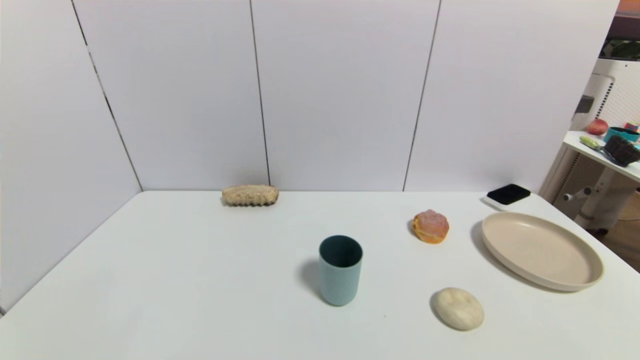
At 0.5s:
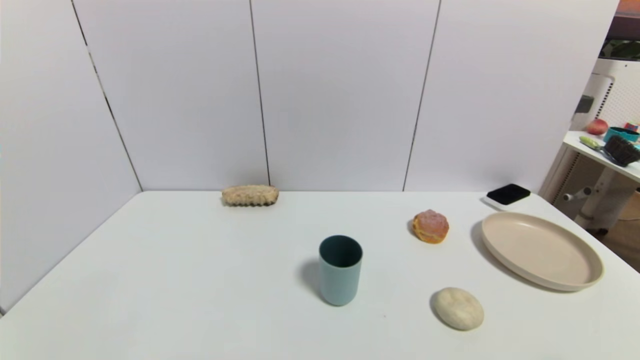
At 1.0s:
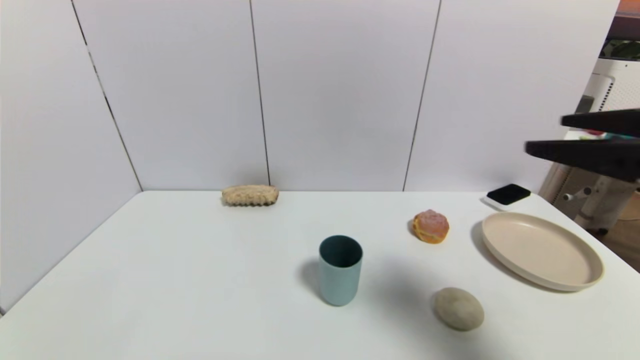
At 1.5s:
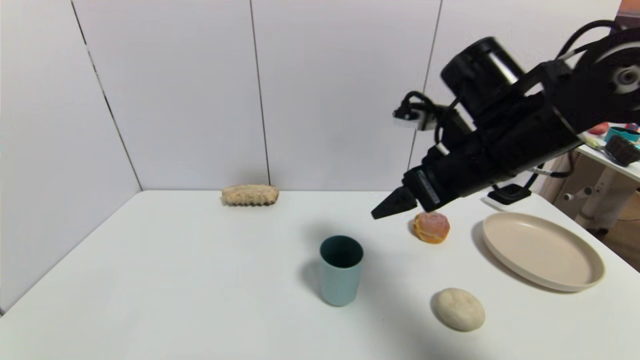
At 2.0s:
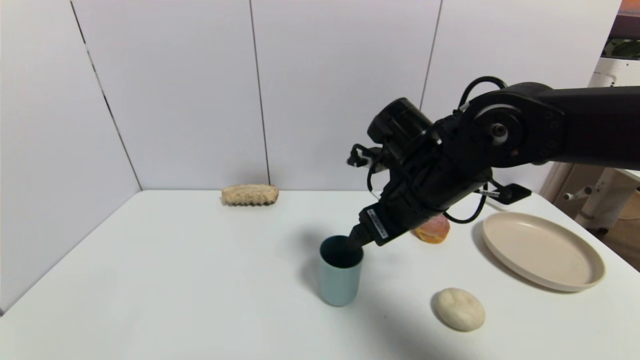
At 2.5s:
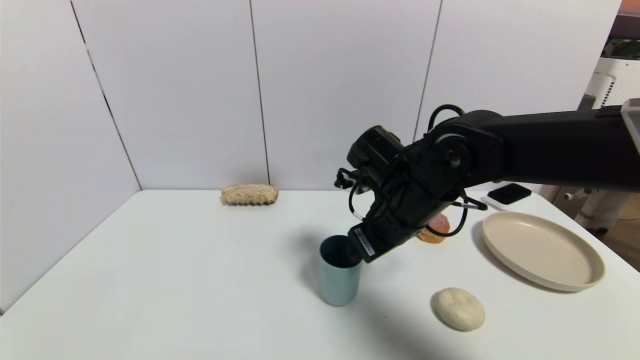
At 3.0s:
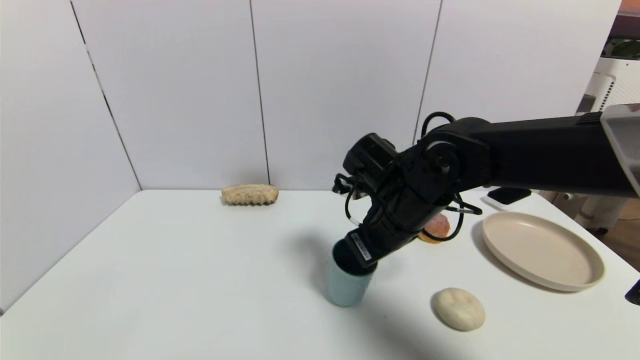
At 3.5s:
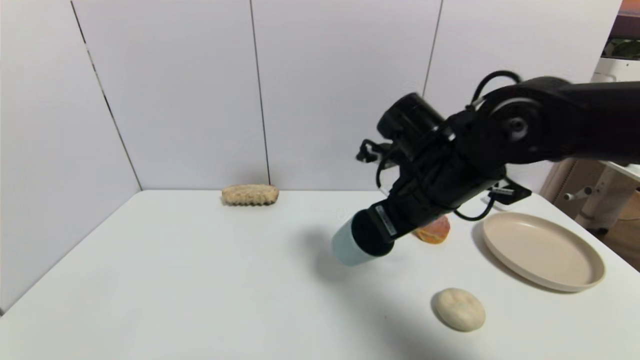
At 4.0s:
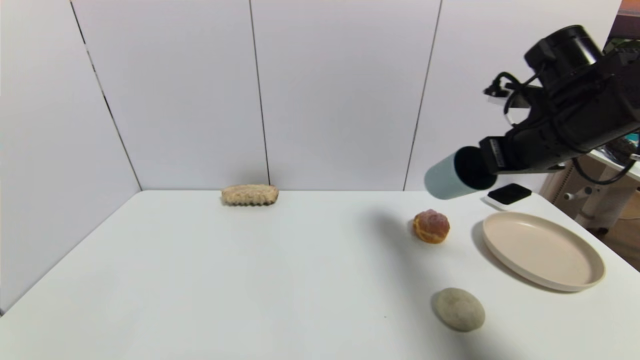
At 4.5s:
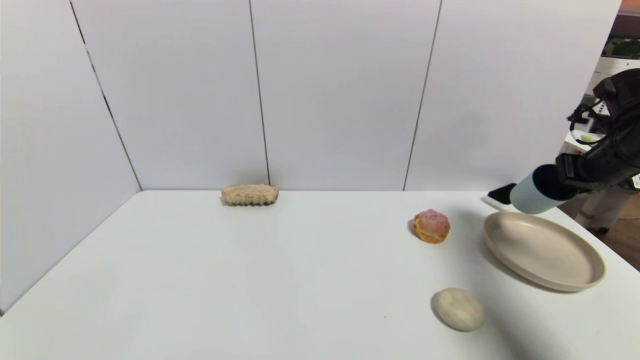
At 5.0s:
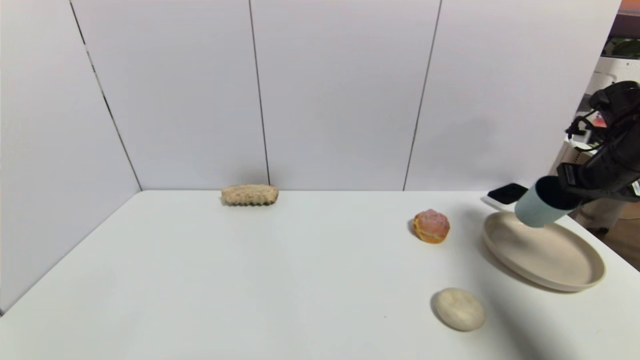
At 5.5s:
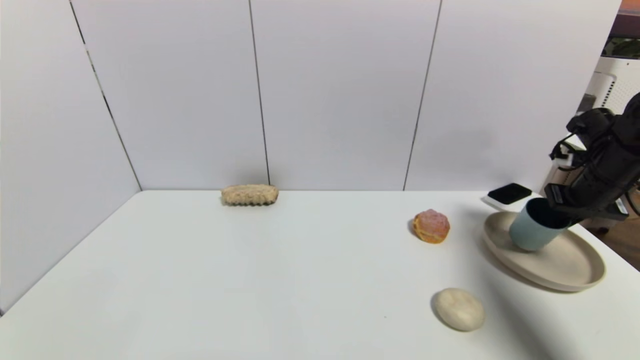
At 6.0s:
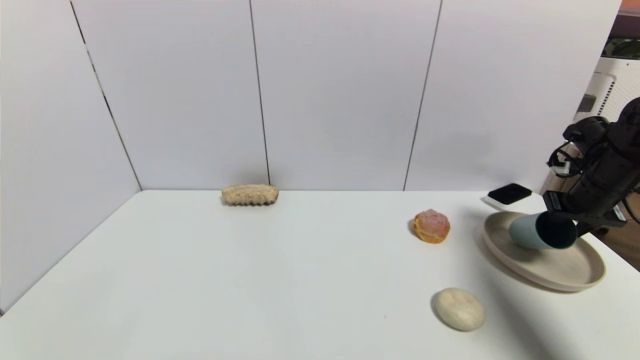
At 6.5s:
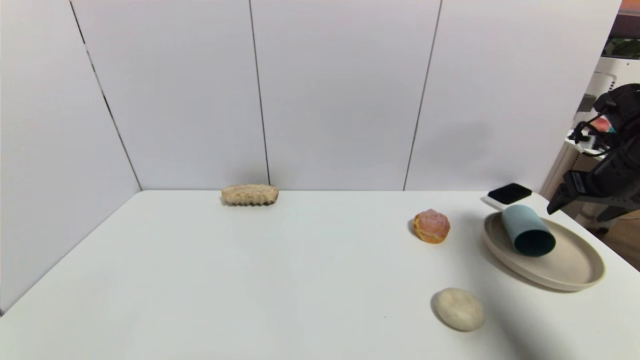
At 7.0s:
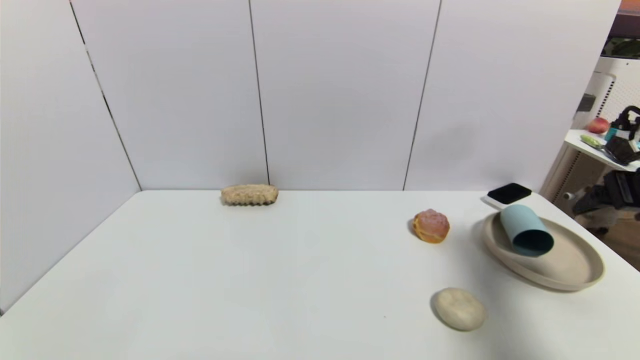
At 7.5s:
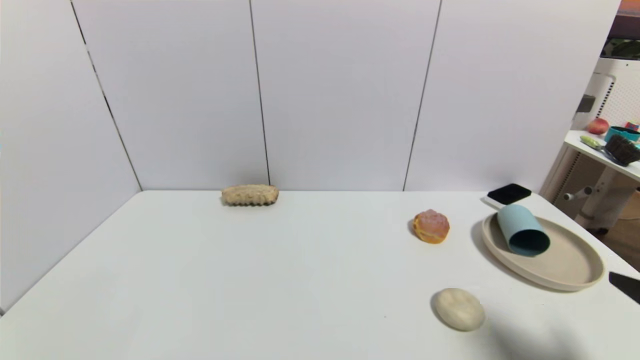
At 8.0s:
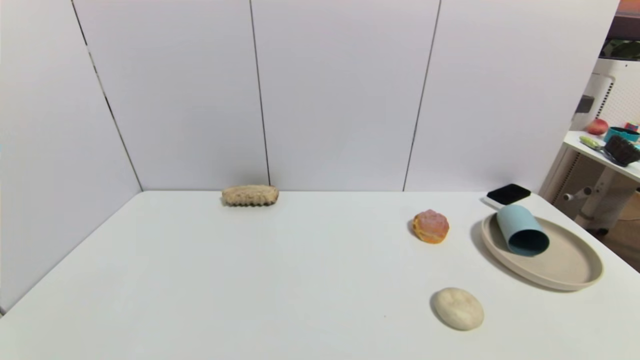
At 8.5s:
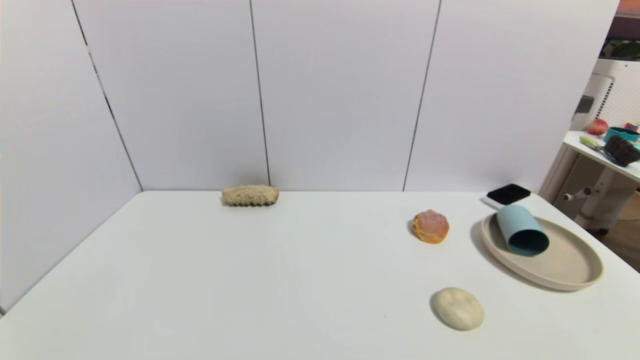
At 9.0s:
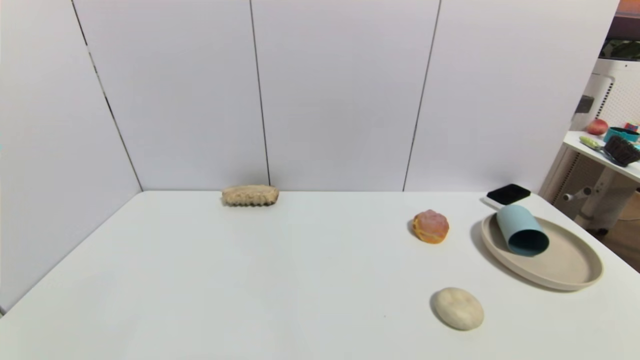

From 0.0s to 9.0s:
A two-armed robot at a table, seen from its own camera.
Task of the whole recording: use a gripper to pick the target object and place on the brown plate.
Step, from 0.0s to 3.0s: Grasp the blue cup with the right gripper.
Step, from 3.5s to 6.0s: Place the blue cup on the brown plate with the right gripper.
From 0.0s to 2.0s: The right gripper heads forward, to the left and upward, covering roughly 40 cm.
From 2.0s to 4.5s: The right gripper heads to the right, covering about 30 cm, and closes up.
From 4.5s to 7.0s: The right gripper moves backward, some 10 cm, and opens its fingers.
From 7.0s to 9.0s: The right gripper shifts some 35 cm backward and downward.

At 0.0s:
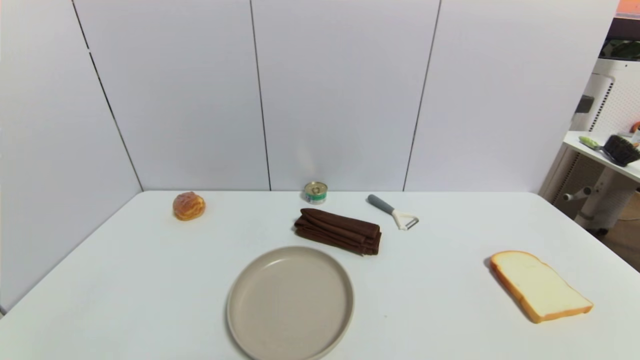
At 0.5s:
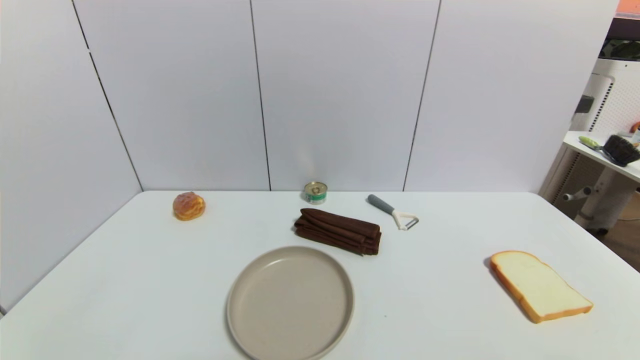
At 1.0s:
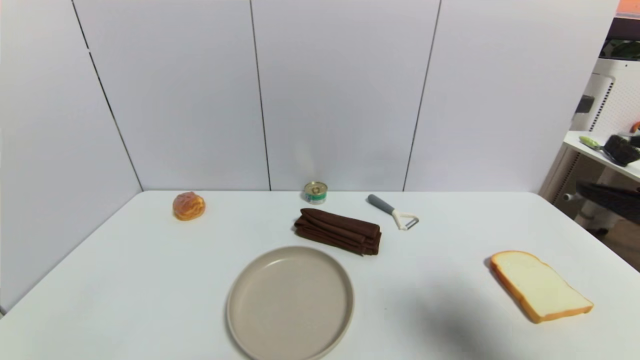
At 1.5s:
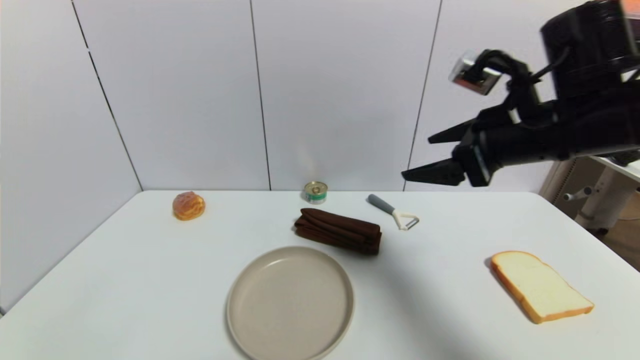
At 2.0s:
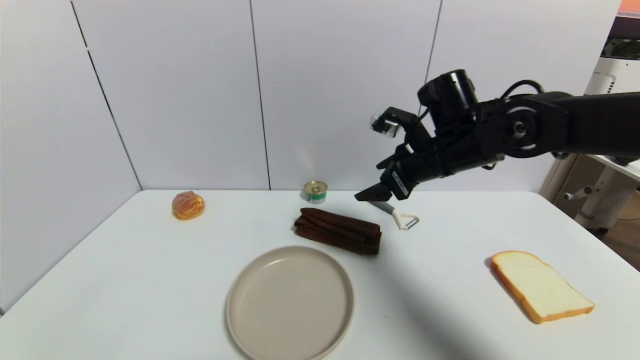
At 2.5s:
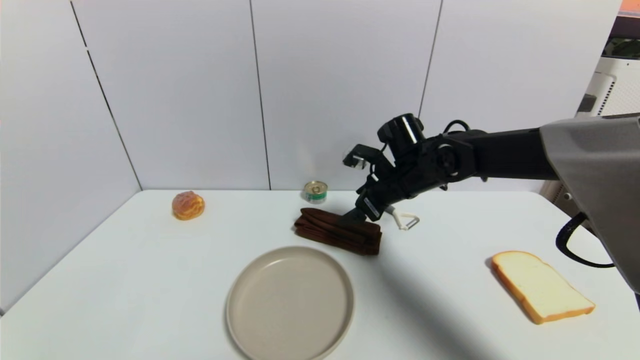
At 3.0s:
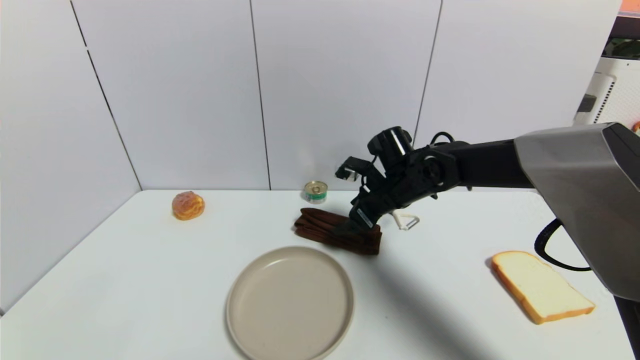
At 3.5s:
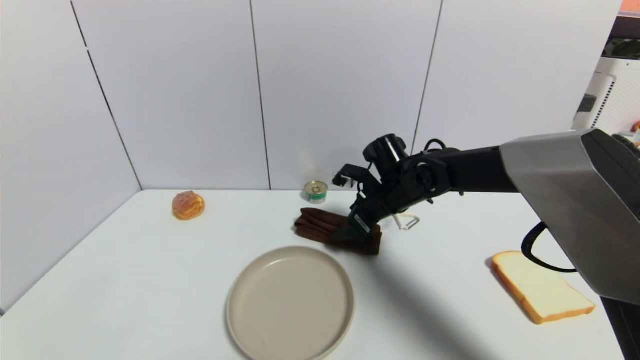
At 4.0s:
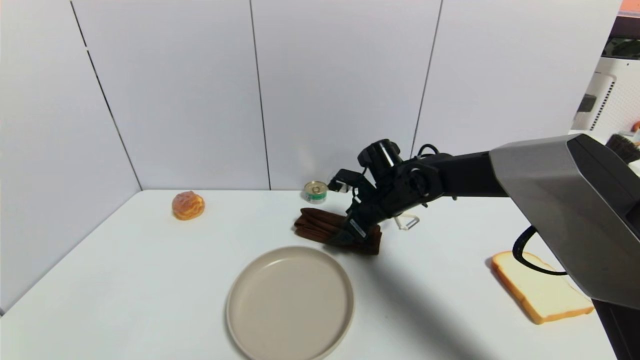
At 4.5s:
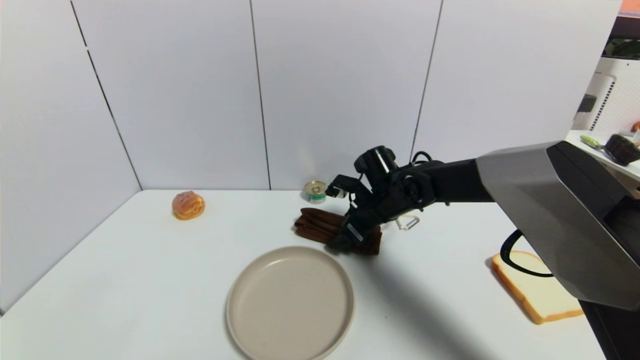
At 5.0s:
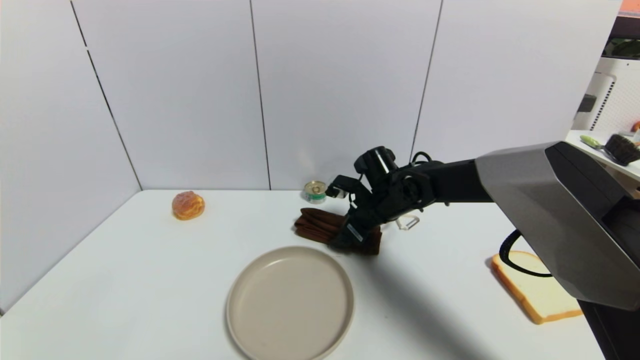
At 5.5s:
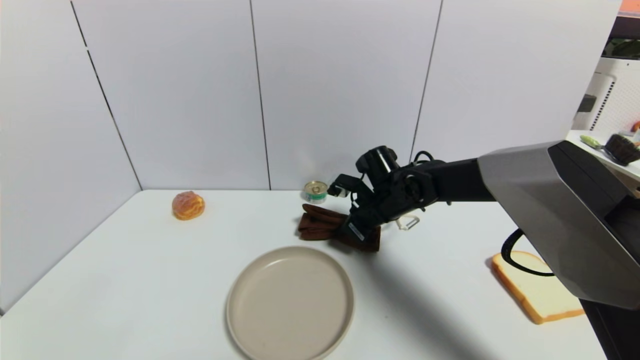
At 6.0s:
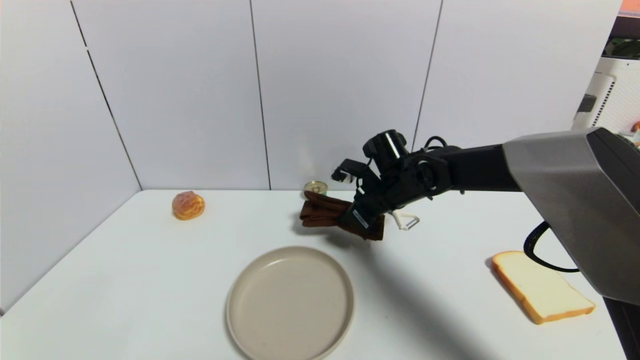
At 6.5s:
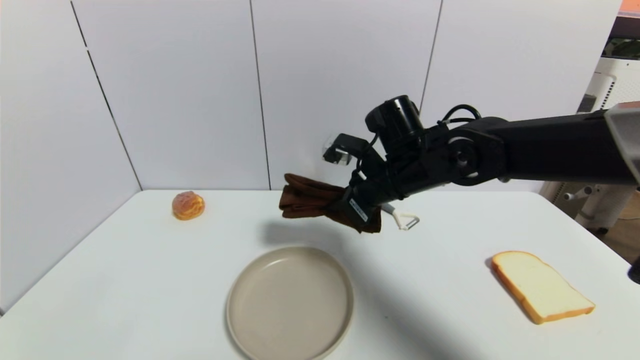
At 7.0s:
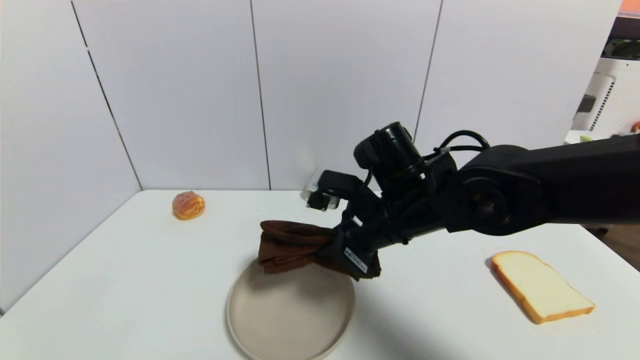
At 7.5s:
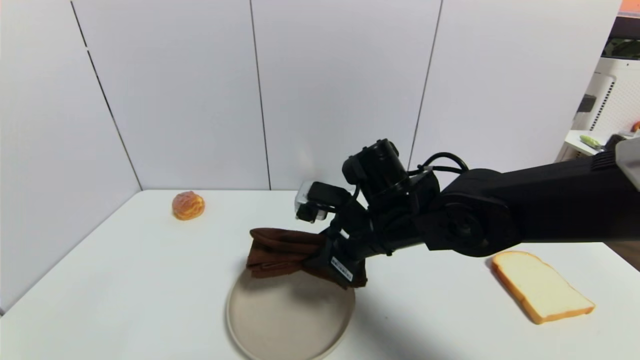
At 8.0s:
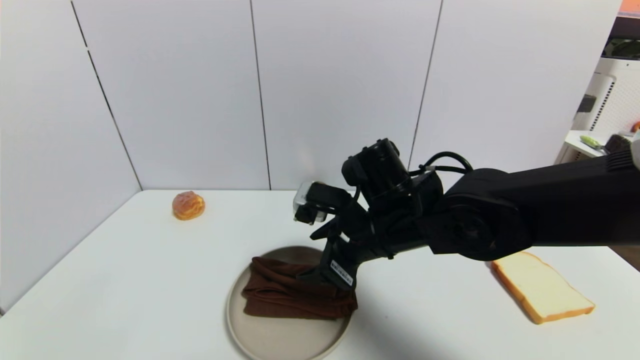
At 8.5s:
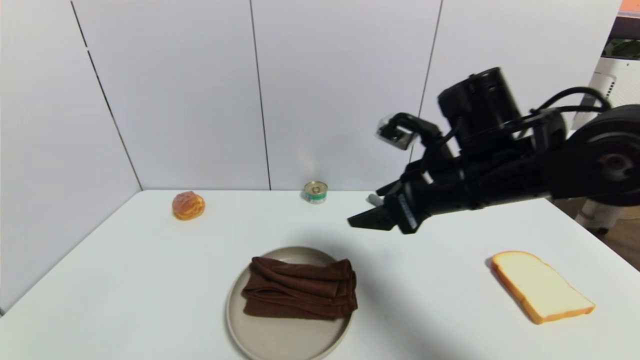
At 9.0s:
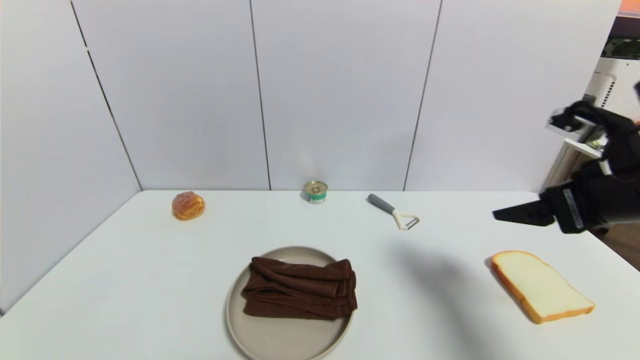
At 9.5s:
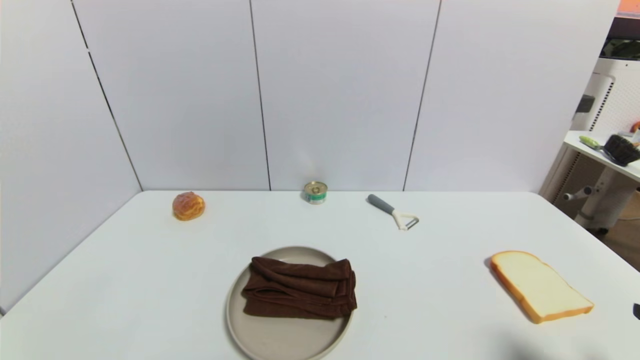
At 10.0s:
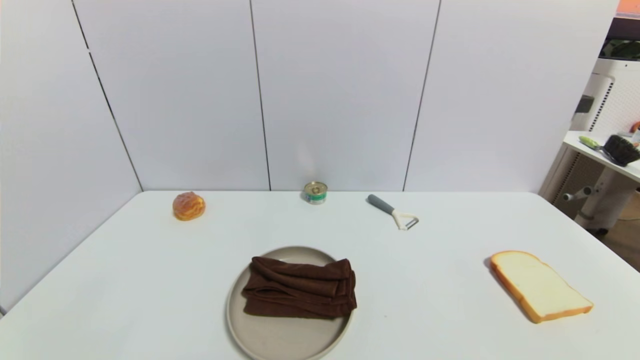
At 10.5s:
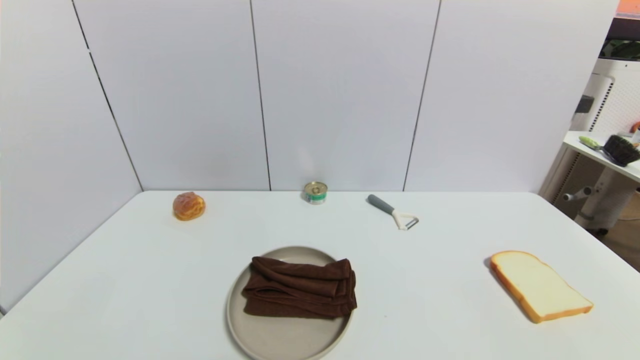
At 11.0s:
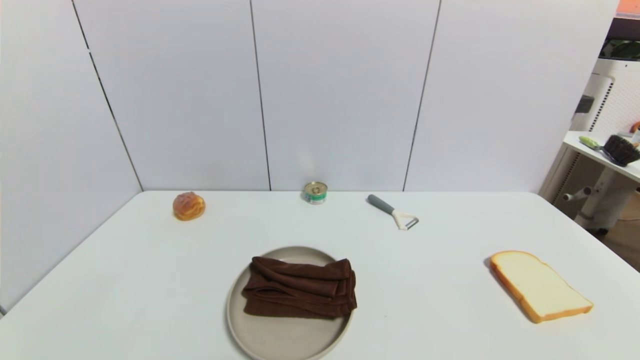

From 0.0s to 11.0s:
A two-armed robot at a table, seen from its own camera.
Task of the whole recording: use a gripper to pick the target object and place on the brown plate.
Step, from 0.0s to 5.5s: Grasp the brown towel with the right gripper.
Step, from 6.0s to 8.0s: Place the brown towel on the brown plate with the right gripper.
From 0.0s to 2.0s: The right gripper travels forward and to the left by approximately 40 cm.
From 2.0s to 3.5s: The right gripper moves downward, approximately 10 cm.
From 3.5s to 5.5s: The right gripper closes its fingers.
From 5.5s to 7.5s: The right gripper moves backward and upward, approximately 15 cm.
From 7.5s to 9.0s: The right gripper heads to the right and upward, covering roughly 25 cm, and opens up.
From 9.0s to 11.0s: The right gripper moves backward and downward, about 30 cm.
